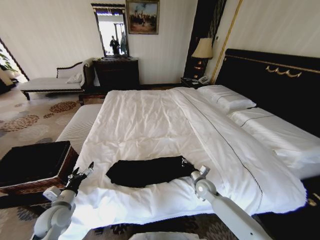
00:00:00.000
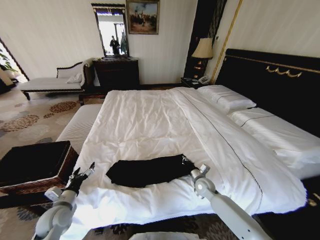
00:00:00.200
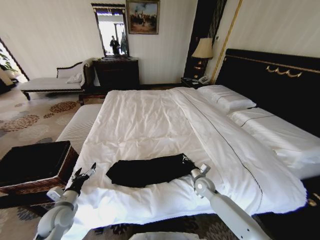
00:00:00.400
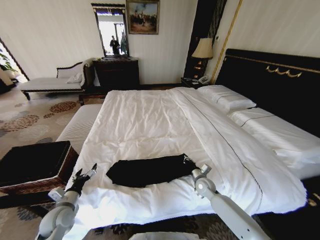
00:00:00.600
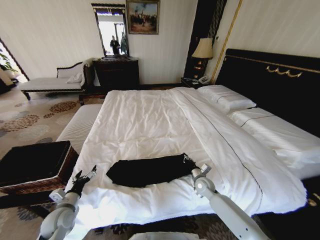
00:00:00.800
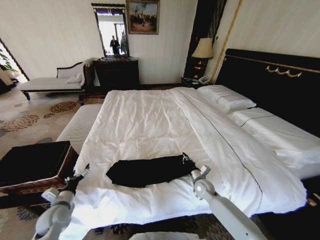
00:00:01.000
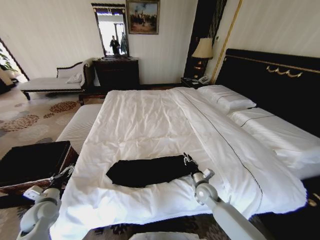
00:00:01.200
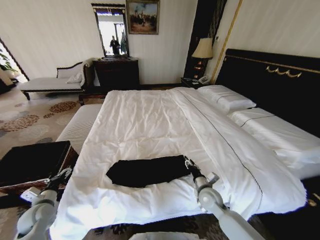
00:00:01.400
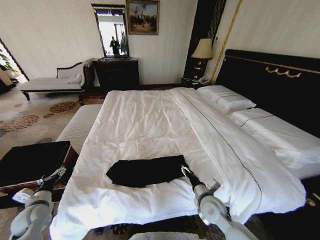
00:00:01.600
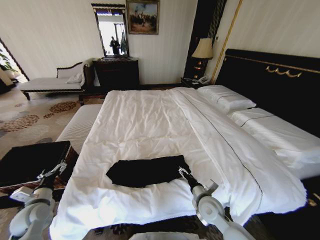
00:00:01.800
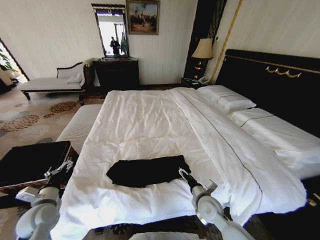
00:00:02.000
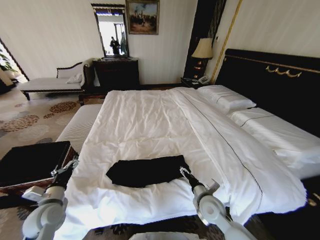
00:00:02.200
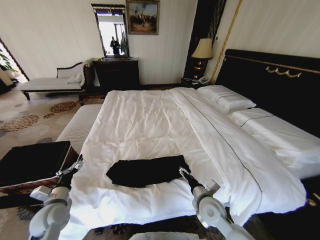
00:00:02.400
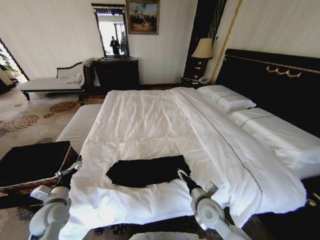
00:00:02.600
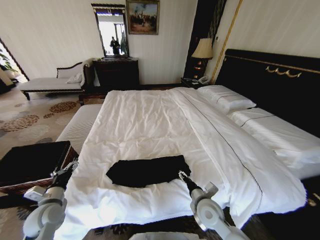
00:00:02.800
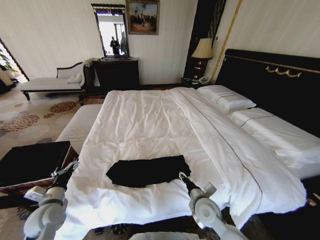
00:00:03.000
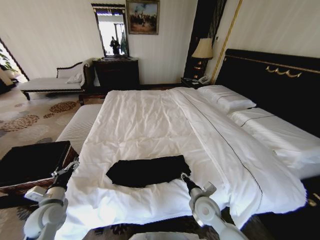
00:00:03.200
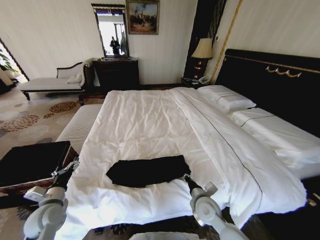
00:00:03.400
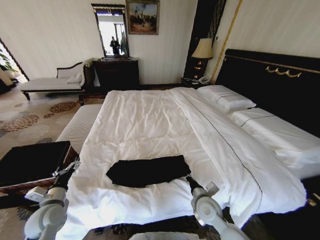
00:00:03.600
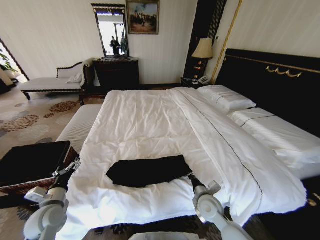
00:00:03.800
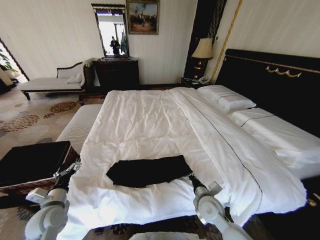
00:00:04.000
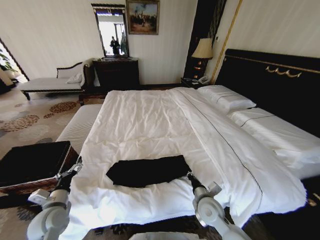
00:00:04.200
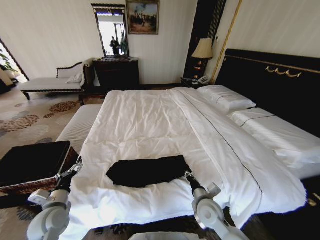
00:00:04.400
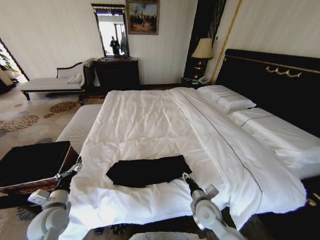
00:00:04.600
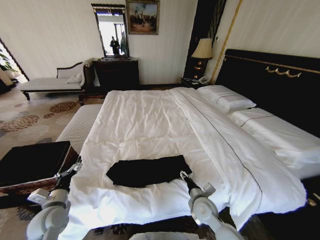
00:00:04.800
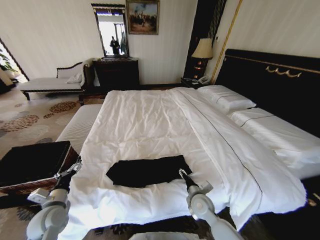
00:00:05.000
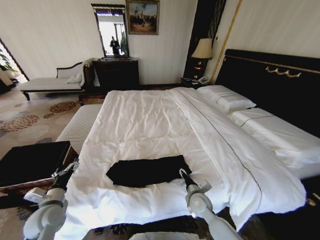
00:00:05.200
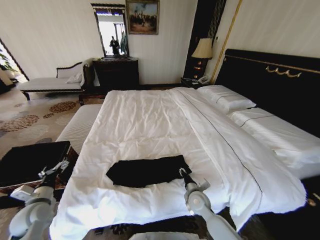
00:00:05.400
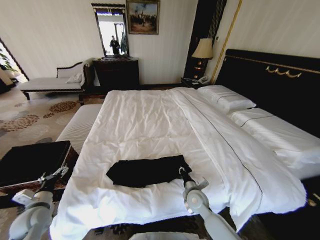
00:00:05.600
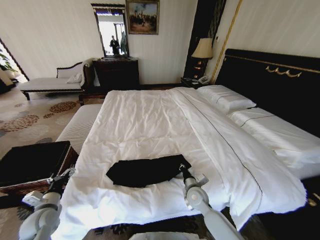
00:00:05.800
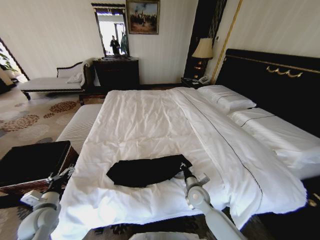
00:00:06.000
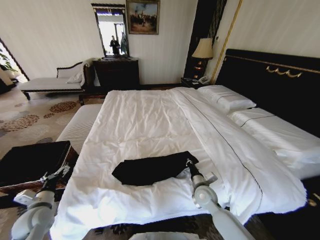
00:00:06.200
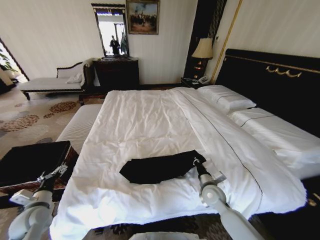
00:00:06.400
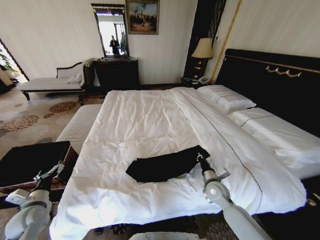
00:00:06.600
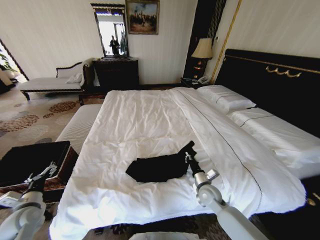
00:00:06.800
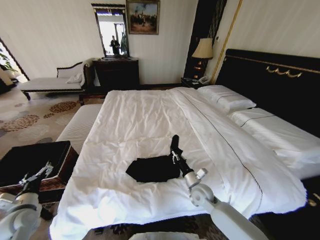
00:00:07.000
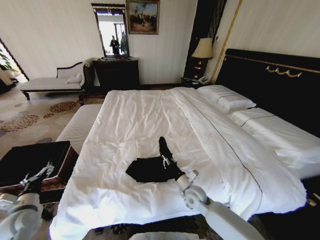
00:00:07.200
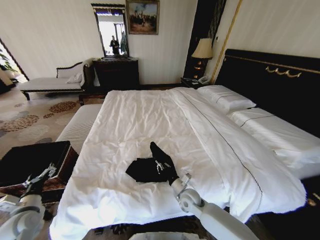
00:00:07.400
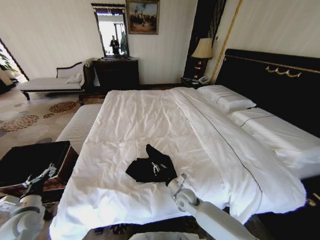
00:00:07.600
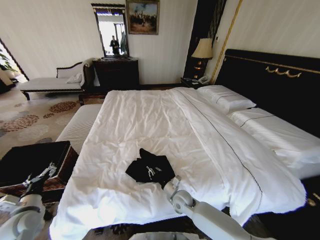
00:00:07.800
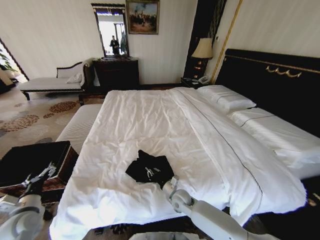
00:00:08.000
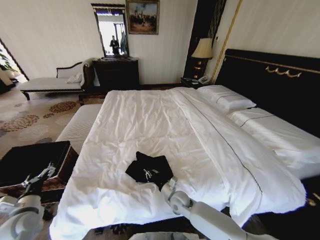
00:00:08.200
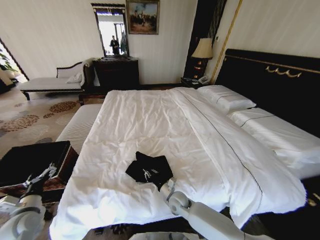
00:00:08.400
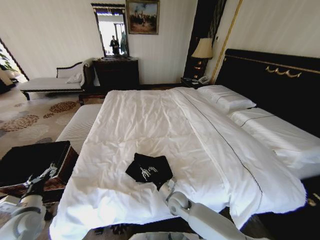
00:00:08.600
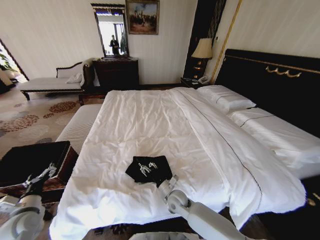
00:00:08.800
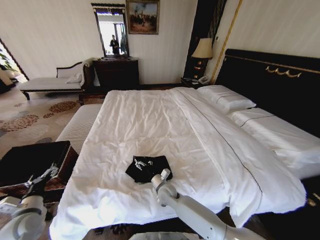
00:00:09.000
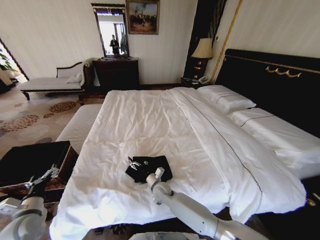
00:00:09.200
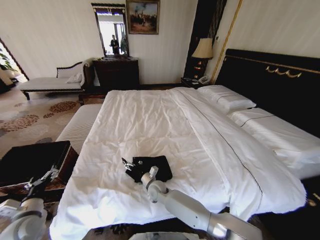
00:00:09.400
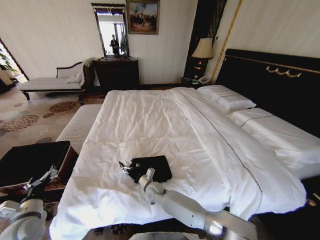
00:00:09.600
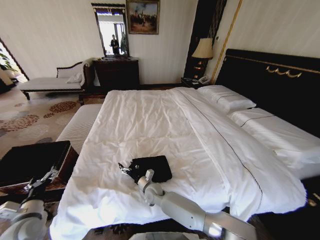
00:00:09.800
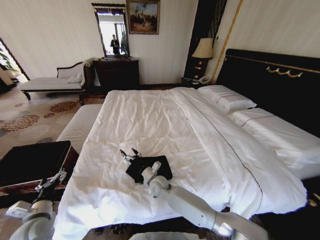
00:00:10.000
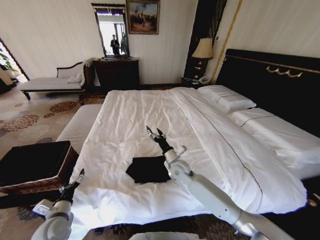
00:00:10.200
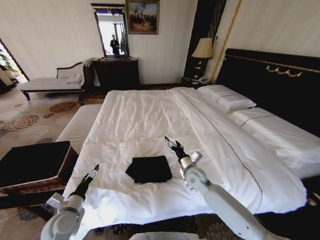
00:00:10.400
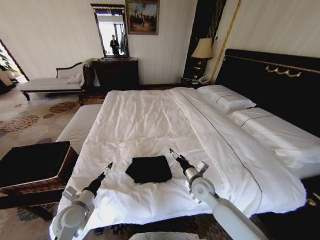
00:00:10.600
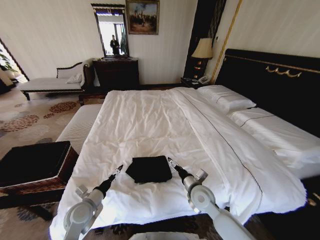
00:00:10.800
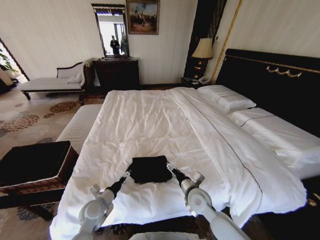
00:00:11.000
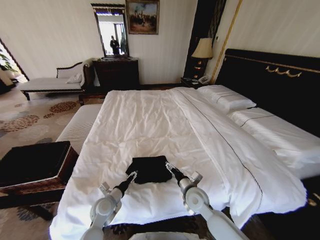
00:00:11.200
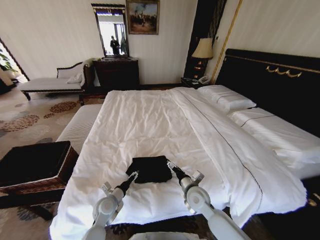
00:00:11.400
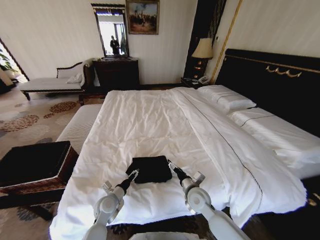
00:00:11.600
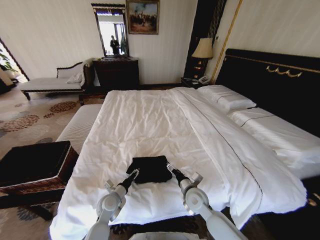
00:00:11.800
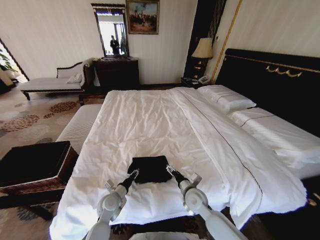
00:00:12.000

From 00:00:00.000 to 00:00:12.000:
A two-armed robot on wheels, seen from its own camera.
Task of the whole recording: Fold the clothes on the bed and place them into the basket.
From 00:00:00.000 to 00:00:01.600: The right gripper is displaced backward and upward by some 15 cm, and opens up. Meanwhile the left gripper goes some 10 cm to the left.
From 00:00:01.600 to 00:00:03.000: The left gripper moves to the right, about 10 cm.
From 00:00:03.000 to 00:00:04.400: The right gripper closes up.
From 00:00:04.400 to 00:00:06.000: The left gripper moves to the left, some 5 cm. Meanwhile the right gripper goes approximately 5 cm forward, and opens, then closes again.
From 00:00:06.000 to 00:00:07.600: The right gripper travels to the left by some 5 cm.
From 00:00:07.600 to 00:00:09.000: The right gripper heads to the left, covering roughly 5 cm, and opens up.
From 00:00:09.000 to 00:00:10.400: The right gripper is displaced to the right, upward and forward by about 15 cm. The left gripper travels to the right by about 10 cm.
From 00:00:10.400 to 00:00:12.000: The left gripper heads to the right, forward and downward, covering some 15 cm, and closes; the right gripper heads backward, covering some 10 cm.

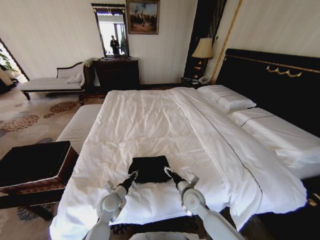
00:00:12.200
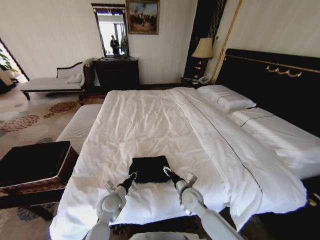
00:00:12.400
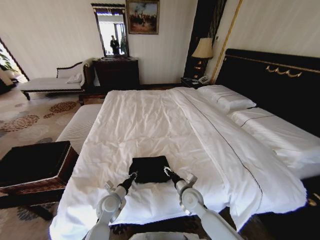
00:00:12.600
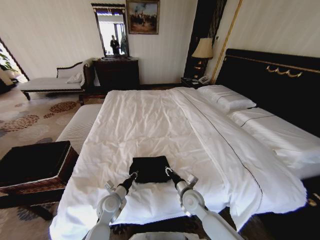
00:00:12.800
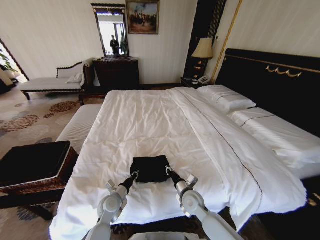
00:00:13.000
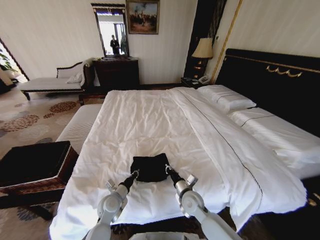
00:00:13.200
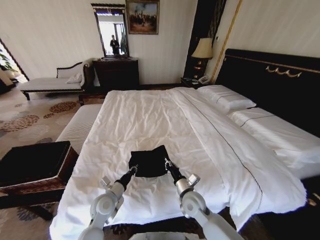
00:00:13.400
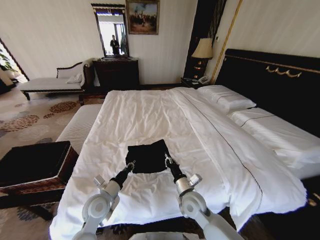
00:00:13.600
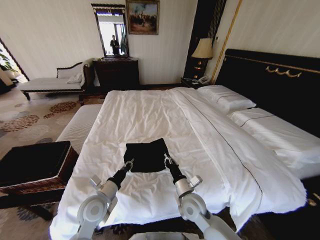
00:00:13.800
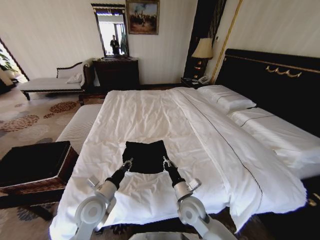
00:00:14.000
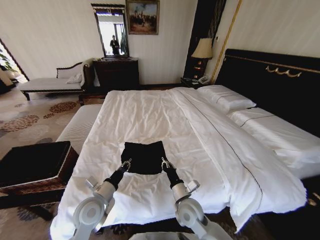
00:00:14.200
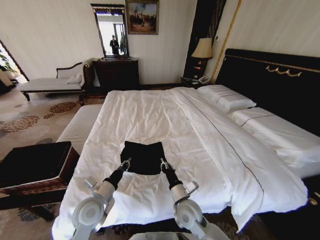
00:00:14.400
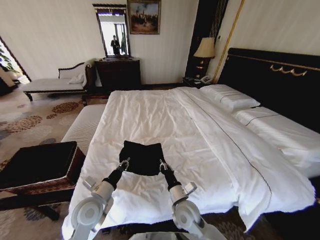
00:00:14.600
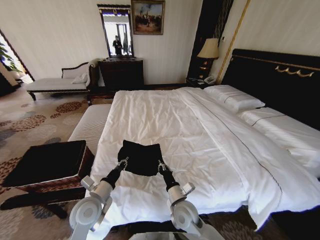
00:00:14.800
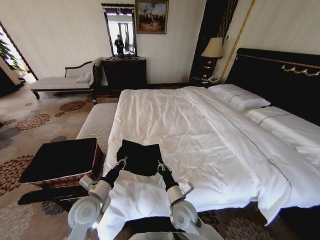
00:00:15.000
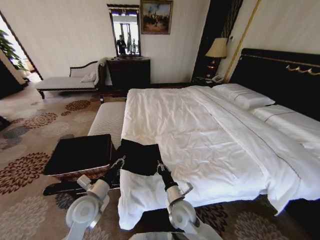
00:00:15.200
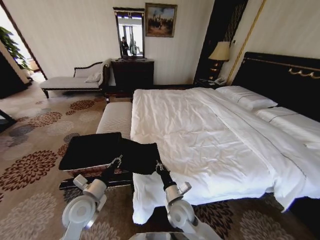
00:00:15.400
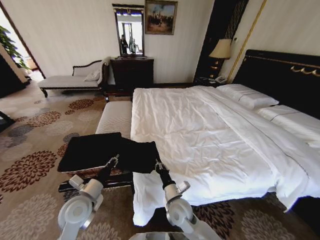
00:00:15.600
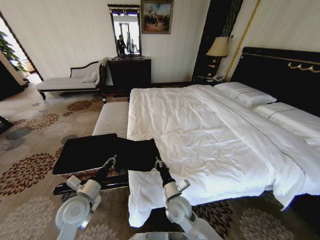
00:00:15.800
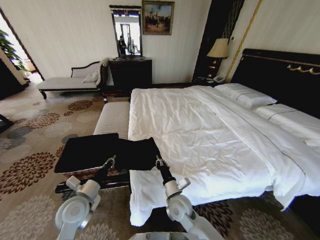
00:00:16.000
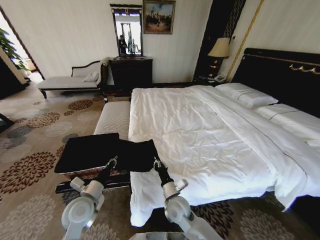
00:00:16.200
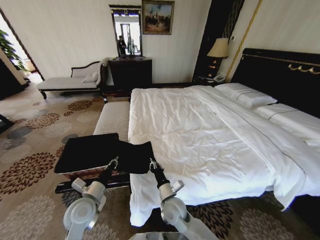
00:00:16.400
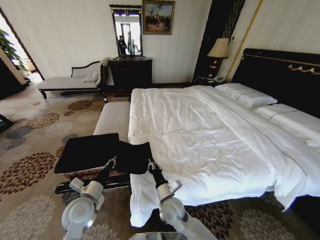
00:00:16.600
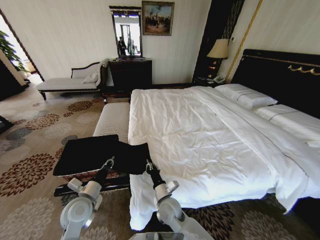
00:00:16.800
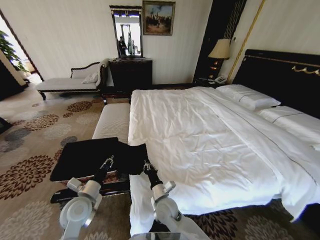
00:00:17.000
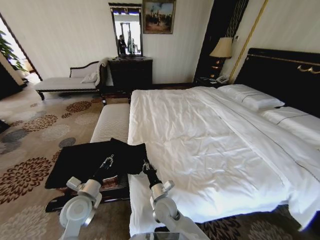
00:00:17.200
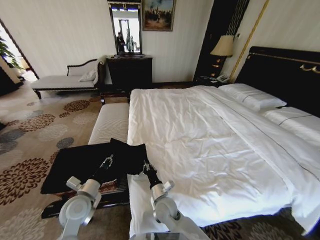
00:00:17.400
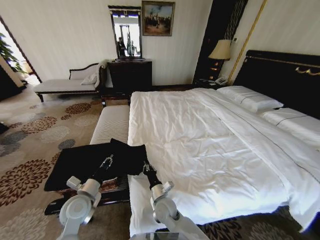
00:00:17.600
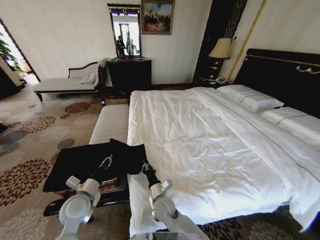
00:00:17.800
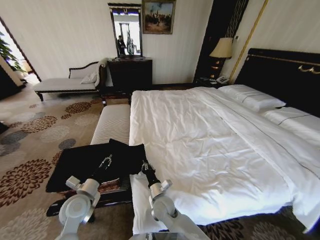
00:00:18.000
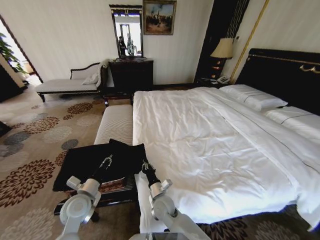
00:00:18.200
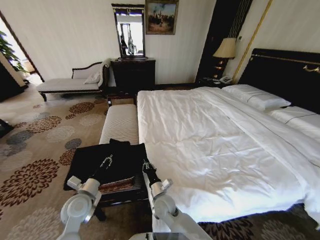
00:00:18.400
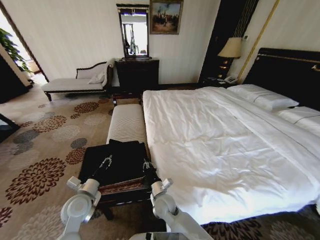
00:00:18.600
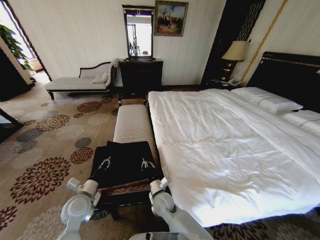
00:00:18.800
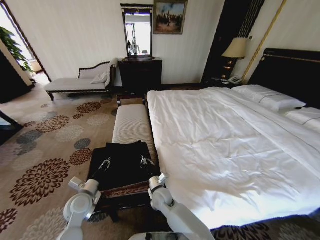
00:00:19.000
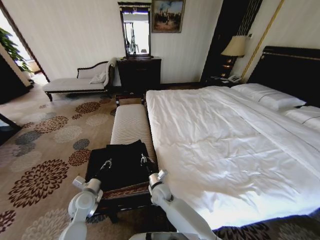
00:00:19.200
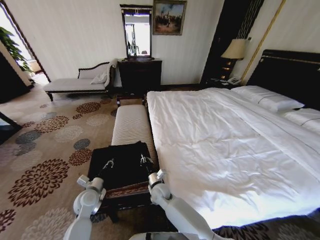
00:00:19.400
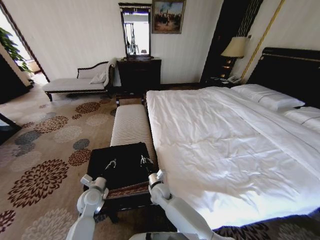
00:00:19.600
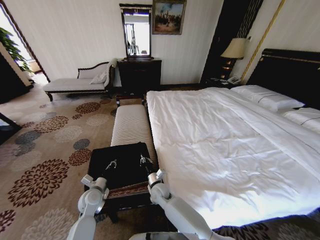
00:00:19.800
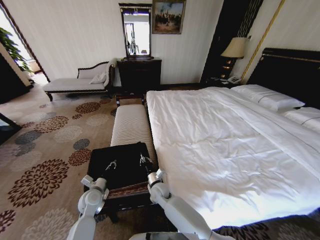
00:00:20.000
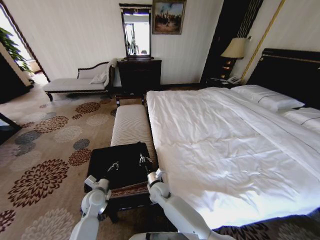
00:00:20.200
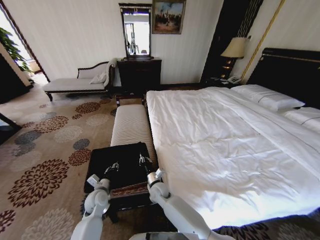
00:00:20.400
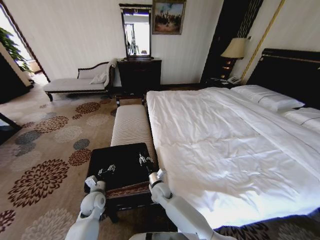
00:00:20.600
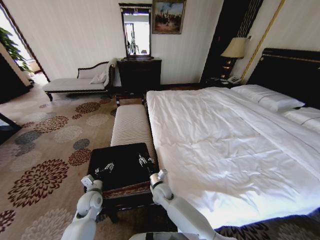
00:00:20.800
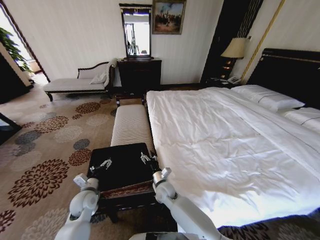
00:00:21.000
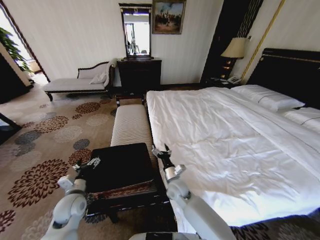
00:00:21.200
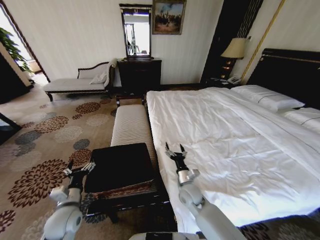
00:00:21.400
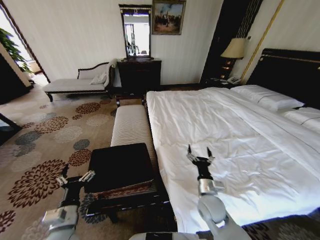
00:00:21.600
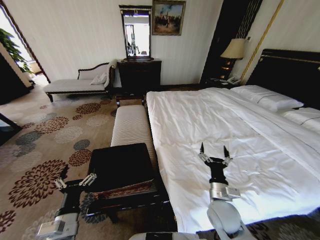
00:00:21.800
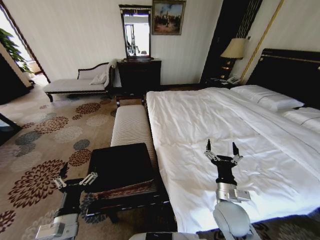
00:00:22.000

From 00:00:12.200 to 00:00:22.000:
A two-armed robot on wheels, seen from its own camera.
Task of the whole recording: Fold the clothes on the bed and place them into the basket.
From 00:00:12.200 to 00:00:13.600: The left gripper is displaced upward by some 10 cm, while the right gripper closes up.
From 00:00:13.600 to 00:00:15.000: The right gripper shifts by roughly 5 cm.
From 00:00:16.400 to 00:00:17.800: The right gripper ends up some 5 cm from where it was.
From 00:00:17.800 to 00:00:19.200: The left gripper goes some 5 cm downward. Meanwhile the right gripper shifts some 5 cm forward.
From 00:00:19.200 to 00:00:20.600: The left gripper ends up approximately 5 cm from where it was, and opens.
From 00:00:20.600 to 00:00:22.000: The right gripper travels to the right, upward and backward by some 30 cm, and opens up. The left gripper travels backward and upward by roughly 20 cm, and opens.
